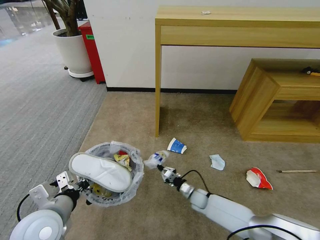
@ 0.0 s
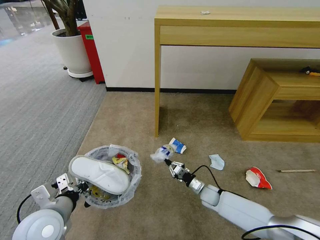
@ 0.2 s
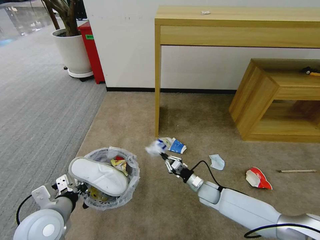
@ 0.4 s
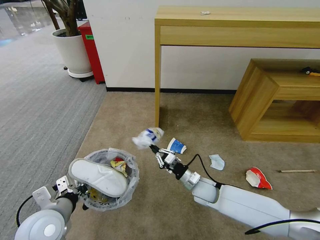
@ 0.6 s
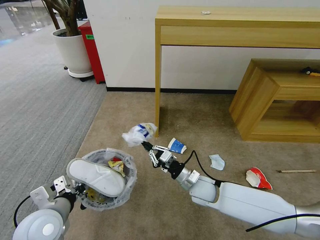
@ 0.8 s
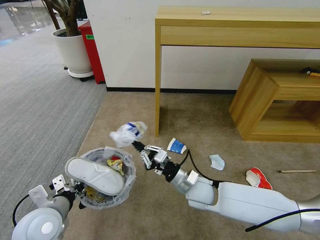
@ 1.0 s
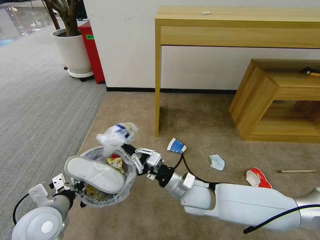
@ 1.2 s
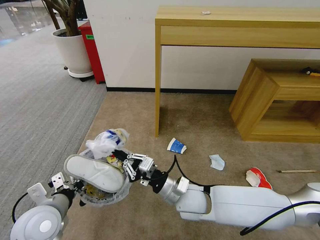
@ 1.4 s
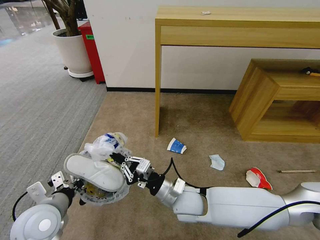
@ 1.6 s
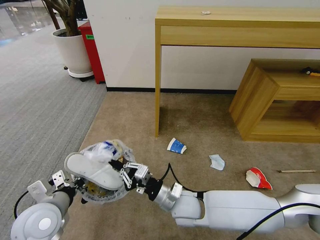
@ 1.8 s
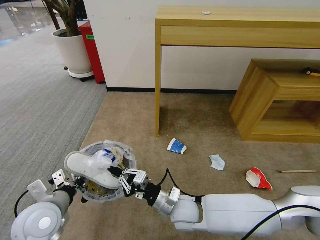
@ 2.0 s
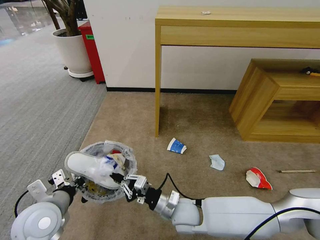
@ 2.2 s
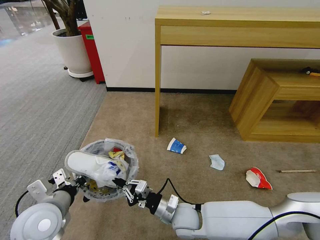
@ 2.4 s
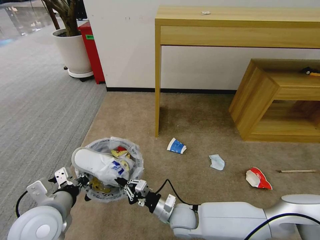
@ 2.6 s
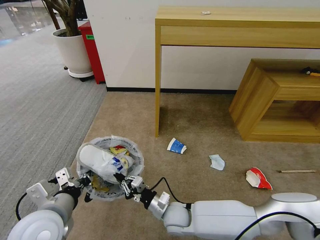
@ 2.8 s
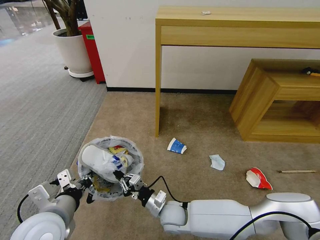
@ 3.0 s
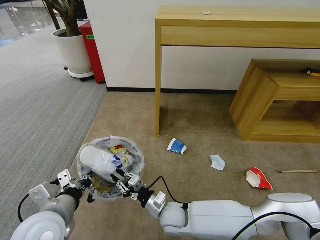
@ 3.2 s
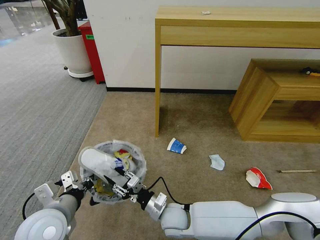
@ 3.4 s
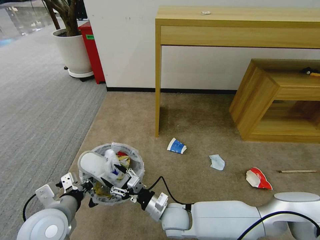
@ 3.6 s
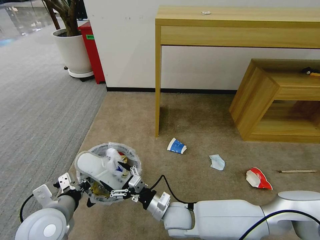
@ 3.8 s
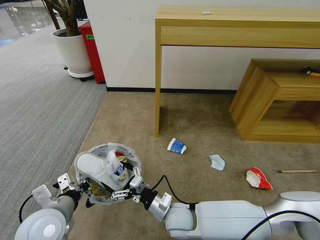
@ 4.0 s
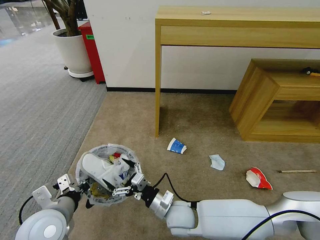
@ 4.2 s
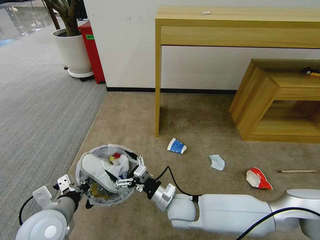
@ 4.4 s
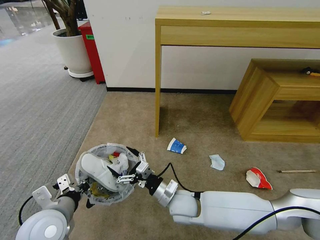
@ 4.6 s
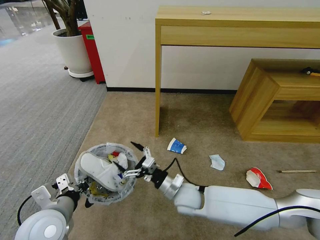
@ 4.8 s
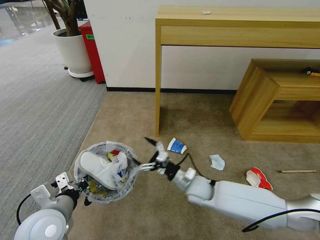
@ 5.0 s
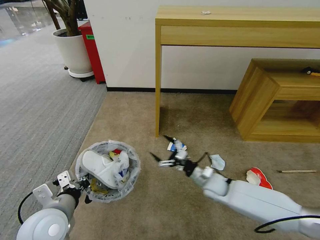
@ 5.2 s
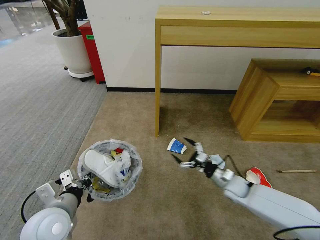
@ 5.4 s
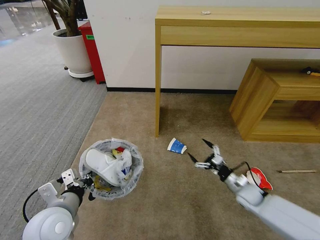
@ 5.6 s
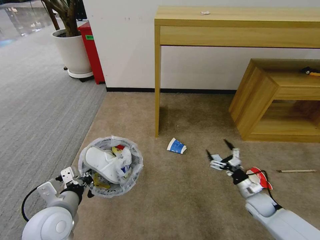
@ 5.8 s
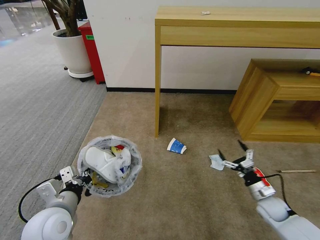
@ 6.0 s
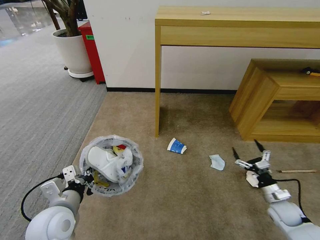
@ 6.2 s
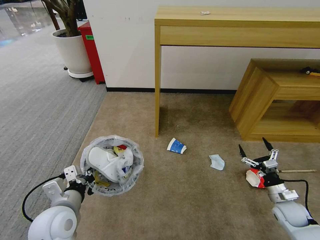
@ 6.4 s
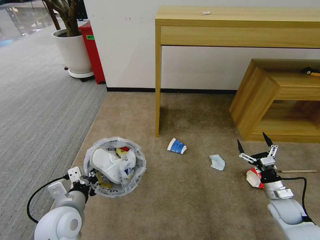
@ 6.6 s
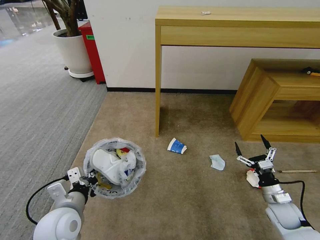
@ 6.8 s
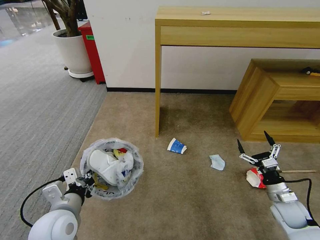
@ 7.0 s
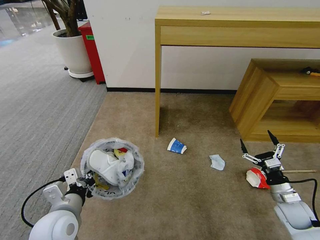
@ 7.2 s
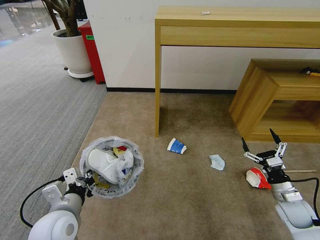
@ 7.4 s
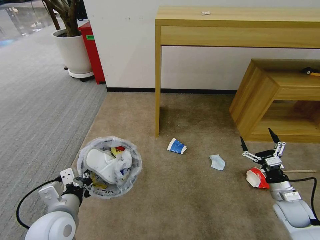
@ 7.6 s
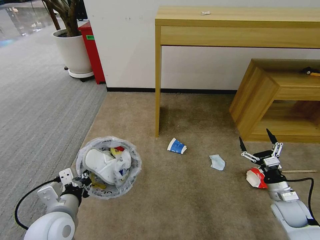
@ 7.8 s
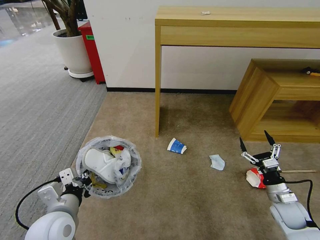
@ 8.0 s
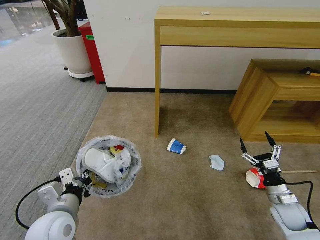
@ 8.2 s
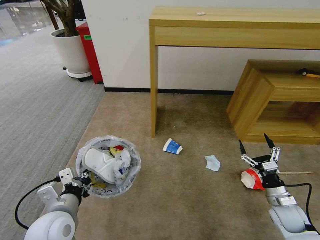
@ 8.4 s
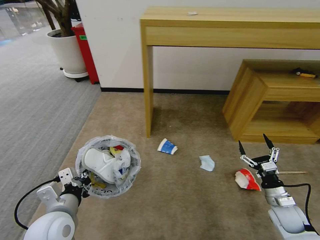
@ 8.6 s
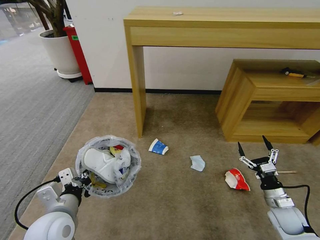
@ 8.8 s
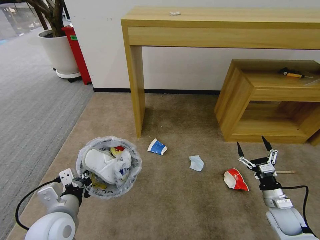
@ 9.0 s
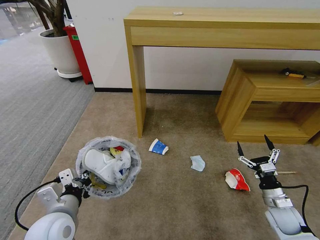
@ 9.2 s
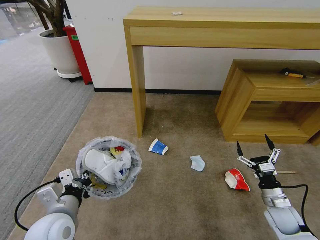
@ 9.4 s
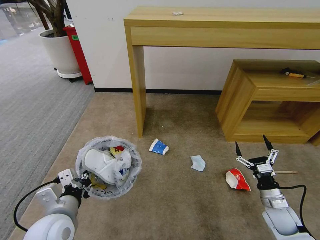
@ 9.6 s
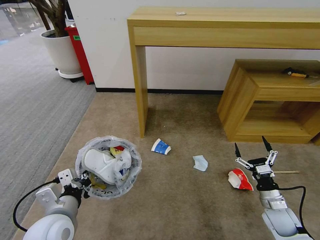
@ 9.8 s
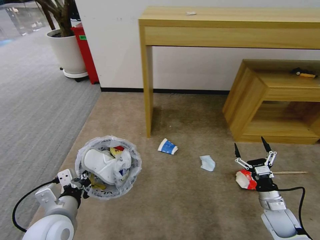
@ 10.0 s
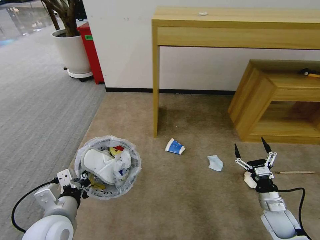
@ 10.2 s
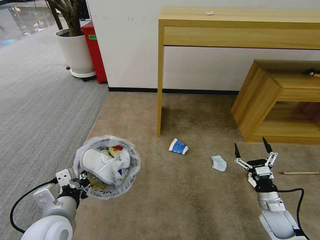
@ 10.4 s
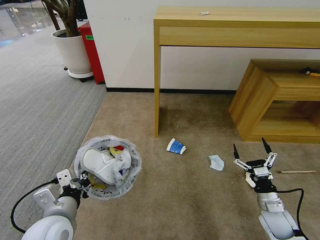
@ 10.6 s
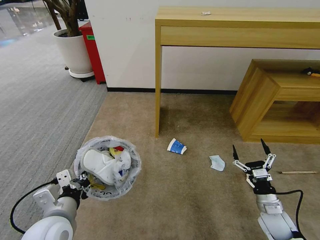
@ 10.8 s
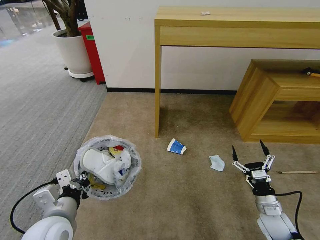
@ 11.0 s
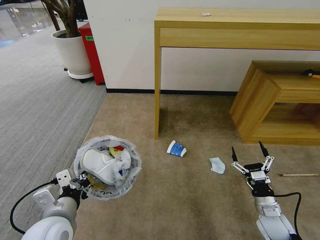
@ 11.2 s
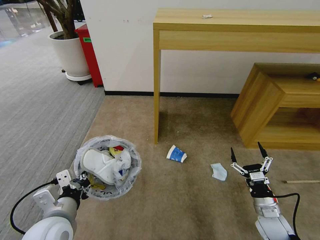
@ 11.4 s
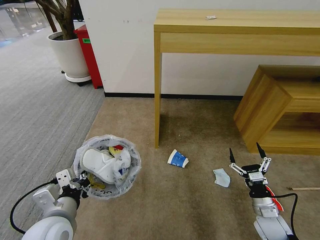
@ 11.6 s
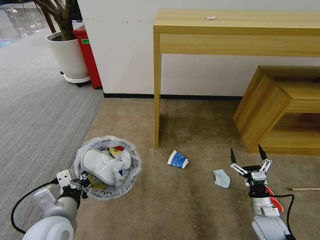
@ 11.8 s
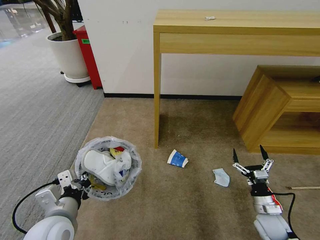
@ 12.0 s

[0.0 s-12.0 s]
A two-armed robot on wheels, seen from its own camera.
Task of the whole recording: Pick up the trash bin and place the garbage on the floor into it.
0.0 to 1.6 s: The right gripper is displaced upward, to the left and backward by some 30 cm.
1.6 to 3.0 s: The left gripper moves roughly 5 cm; the right gripper shifts some 10 cm downward.
3.0 to 4.4 s: The right gripper heads upward, covering roughly 5 cm, and opens up.
4.4 to 6.0 s: The right gripper travels to the right by some 35 cm.
6.0 to 7.6 s: The right gripper heads upward and to the right, covering some 10 cm.

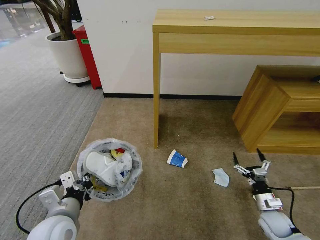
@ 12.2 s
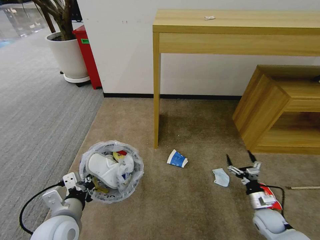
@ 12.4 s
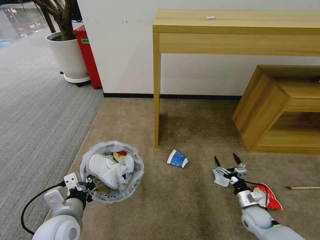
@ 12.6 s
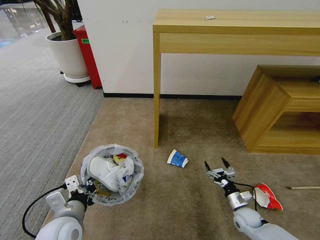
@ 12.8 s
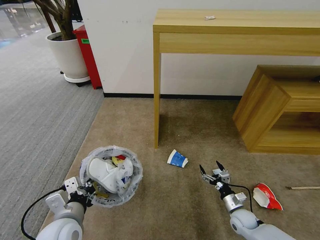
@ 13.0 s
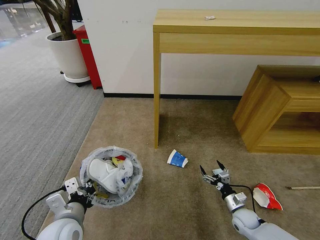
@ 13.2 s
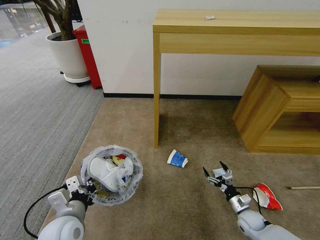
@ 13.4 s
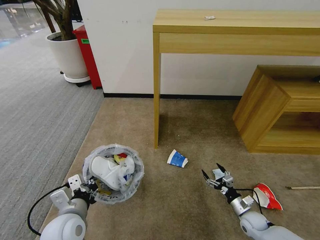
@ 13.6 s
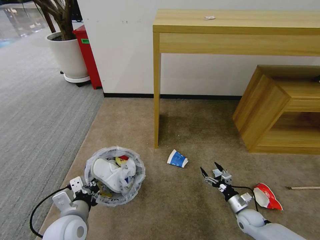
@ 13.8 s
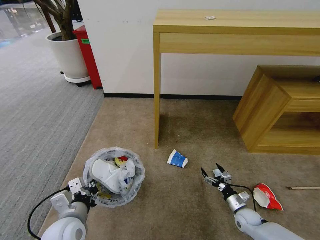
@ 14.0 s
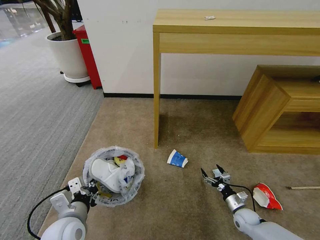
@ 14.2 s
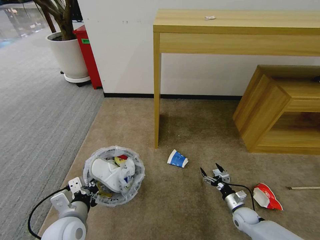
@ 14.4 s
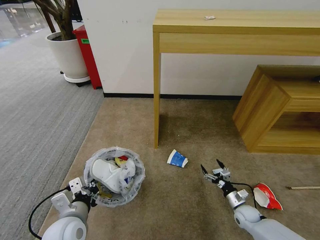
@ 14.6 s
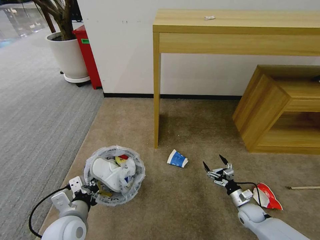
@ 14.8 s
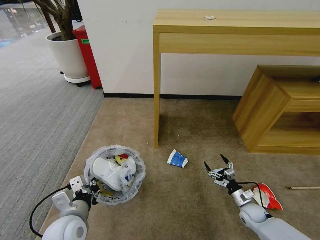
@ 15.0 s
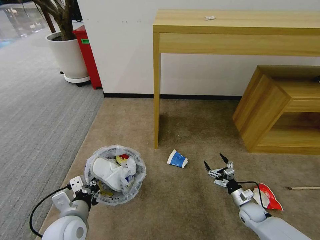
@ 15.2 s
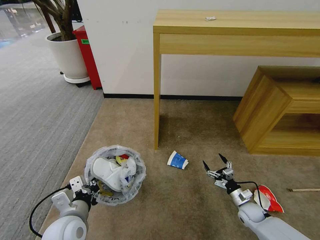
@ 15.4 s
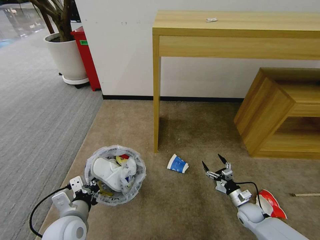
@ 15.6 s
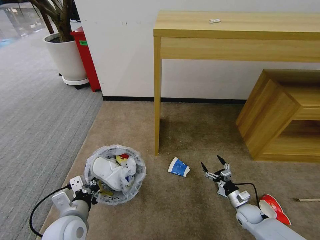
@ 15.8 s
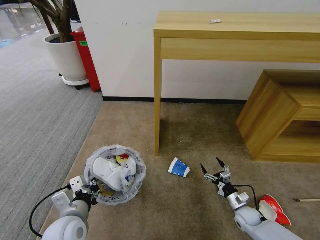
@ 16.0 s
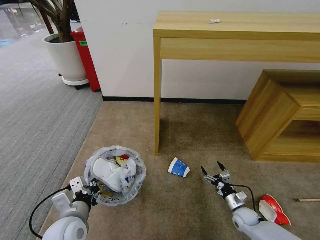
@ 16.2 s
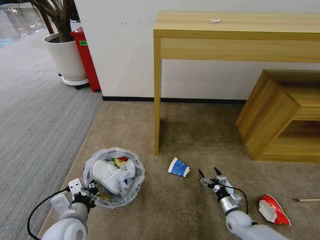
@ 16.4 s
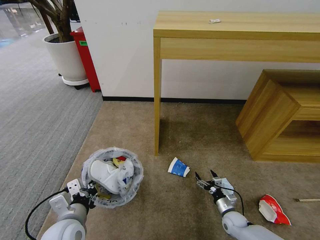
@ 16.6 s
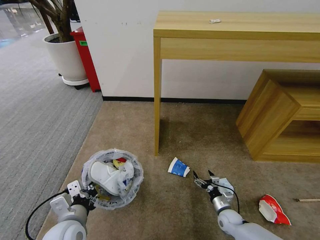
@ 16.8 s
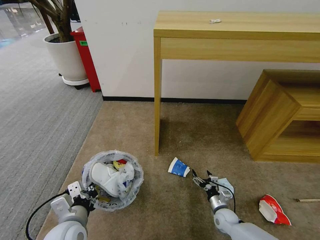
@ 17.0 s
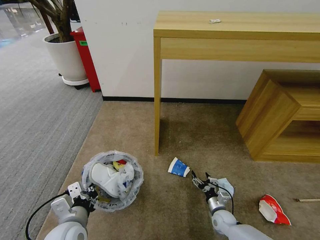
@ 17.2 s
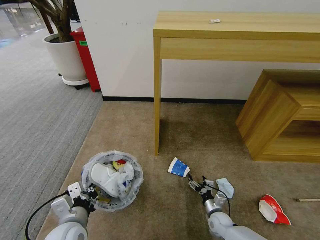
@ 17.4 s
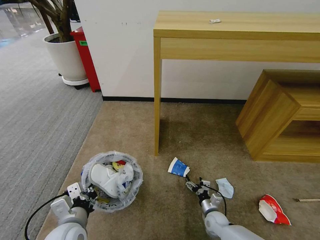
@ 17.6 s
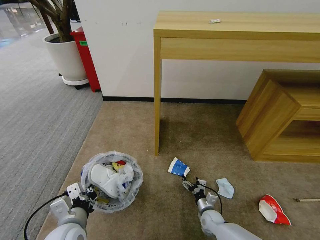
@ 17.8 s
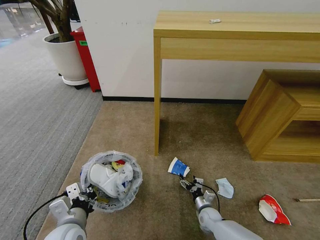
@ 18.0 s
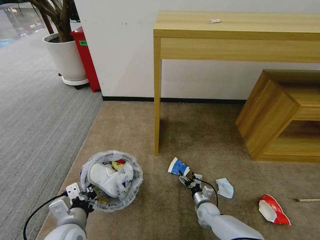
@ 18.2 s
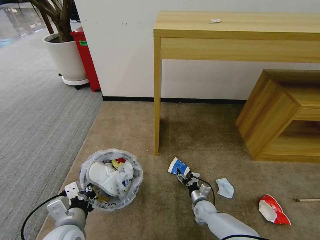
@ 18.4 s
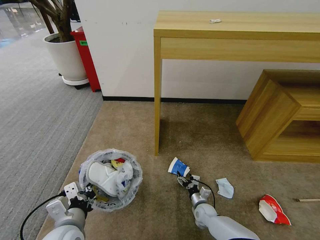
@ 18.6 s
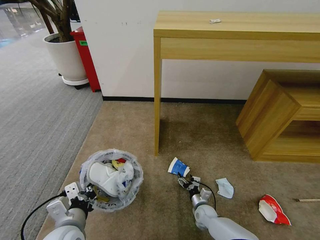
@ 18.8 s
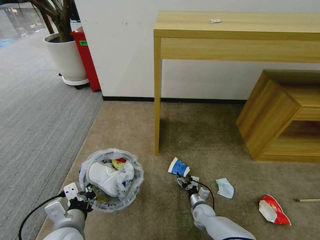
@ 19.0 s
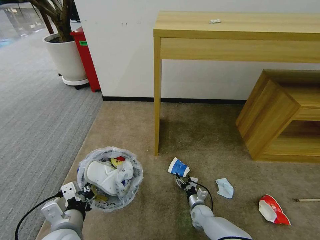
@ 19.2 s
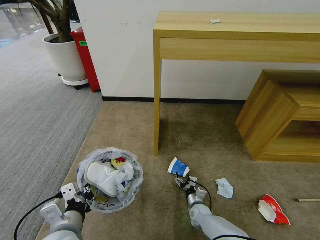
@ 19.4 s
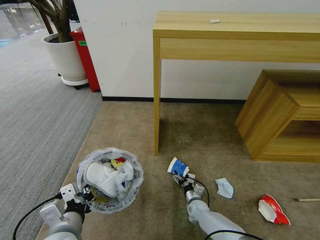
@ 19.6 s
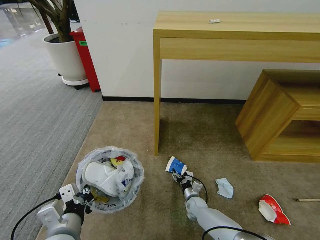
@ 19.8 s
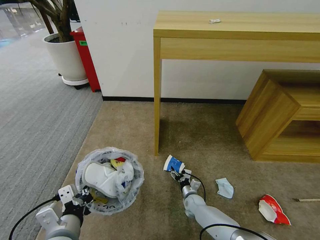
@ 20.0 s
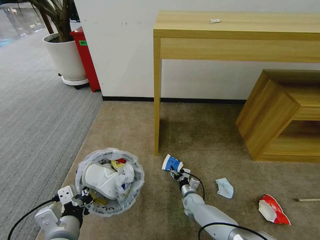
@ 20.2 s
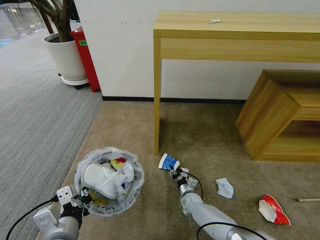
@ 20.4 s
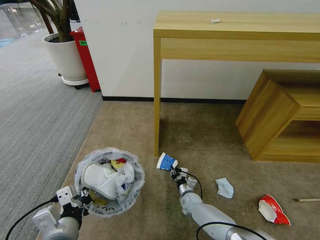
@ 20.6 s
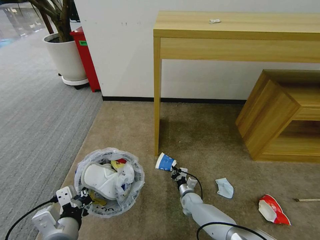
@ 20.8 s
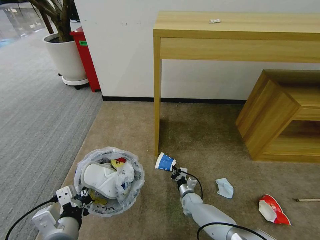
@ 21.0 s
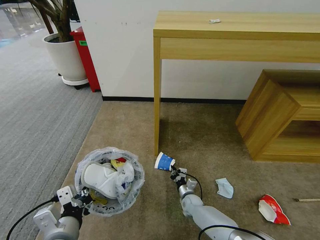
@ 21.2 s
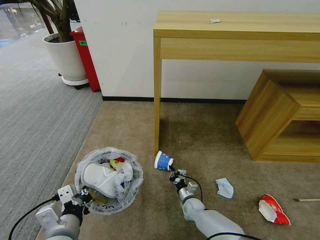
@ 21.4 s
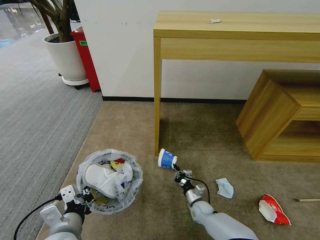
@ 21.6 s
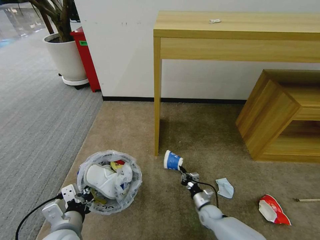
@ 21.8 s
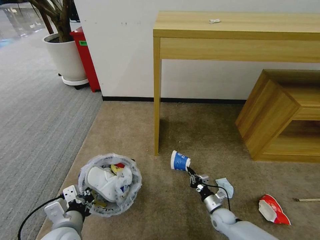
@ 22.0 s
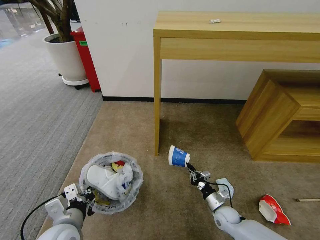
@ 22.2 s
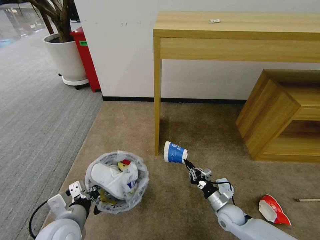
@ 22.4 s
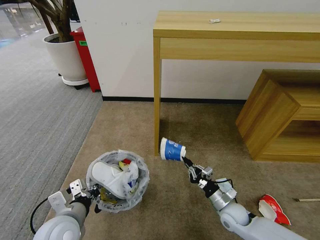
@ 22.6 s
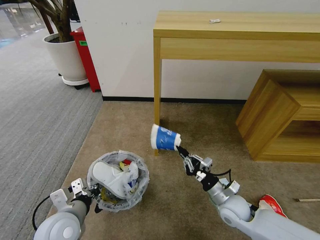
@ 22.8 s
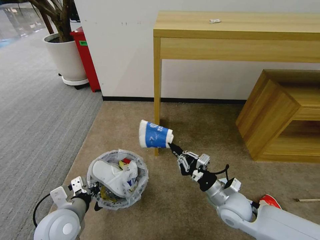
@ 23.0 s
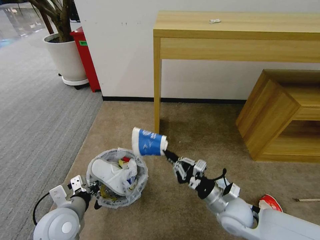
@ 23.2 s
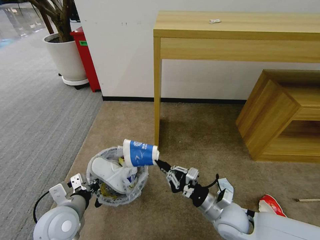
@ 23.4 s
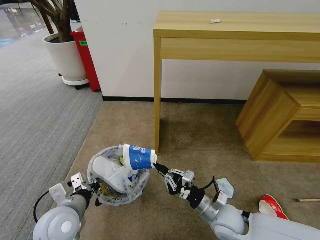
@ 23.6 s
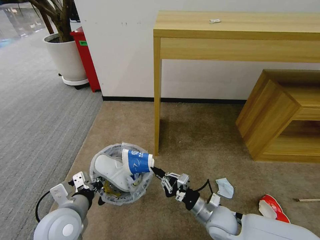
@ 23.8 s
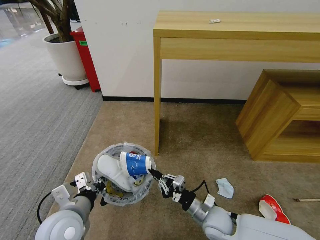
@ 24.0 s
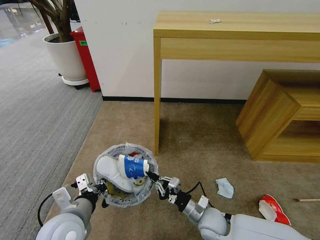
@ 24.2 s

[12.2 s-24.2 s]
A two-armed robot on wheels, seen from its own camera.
Task of the whole recording: Pick up the trash bin and place the garbage on the floor into it.
12.2 to 13.8 s: The right gripper heads downward, covering roughly 10 cm.
13.8 to 15.2 s: The grippers move only a little.
15.2 to 16.6 s: The right gripper shifts some 5 cm to the left.
16.6 to 18.2 s: The right gripper heads to the left, covering about 10 cm.
18.2 to 19.8 s: The right gripper ends up about 5 cm from where it was.
19.8 to 21.2 s: The right gripper closes up.
21.2 to 22.6 s: The left gripper moves forward, roughly 5 cm. The right gripper shifts some 20 cm upward, to the right and backward.
22.6 to 24.2 s: The right gripper moves to the left, roughly 10 cm, and goes upward and returns, roughly 10 cm each way.
